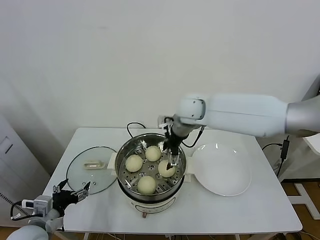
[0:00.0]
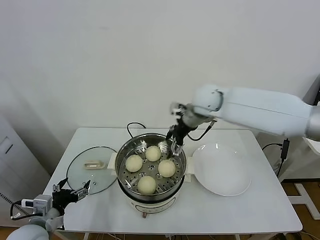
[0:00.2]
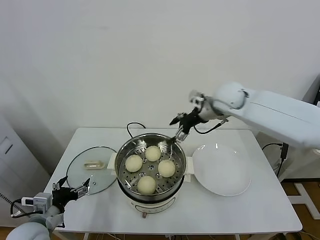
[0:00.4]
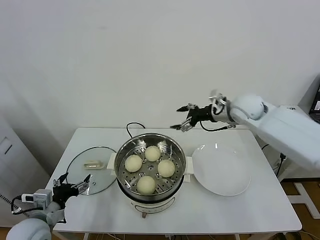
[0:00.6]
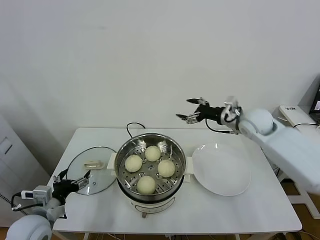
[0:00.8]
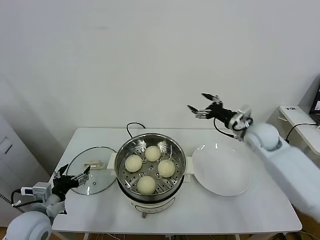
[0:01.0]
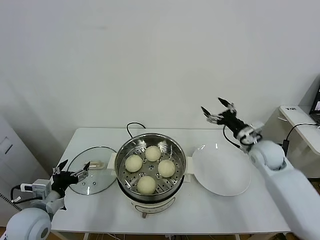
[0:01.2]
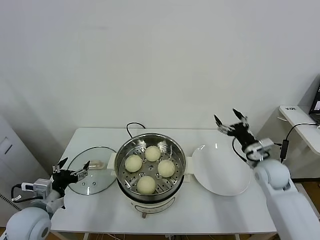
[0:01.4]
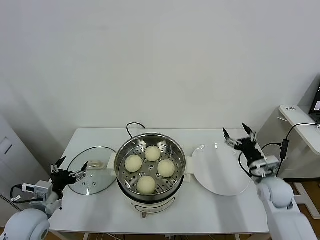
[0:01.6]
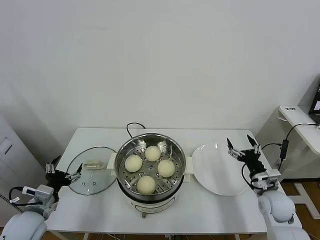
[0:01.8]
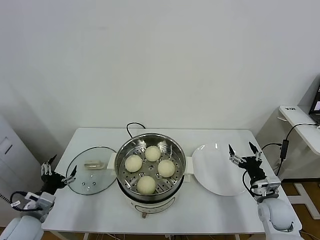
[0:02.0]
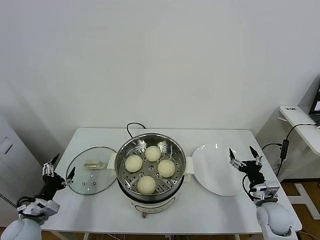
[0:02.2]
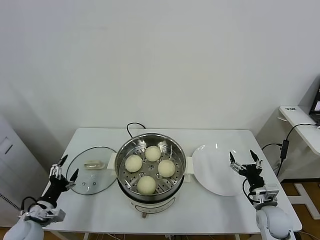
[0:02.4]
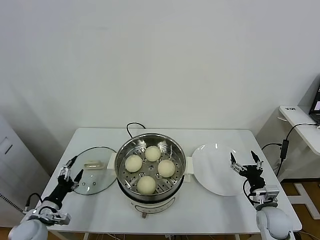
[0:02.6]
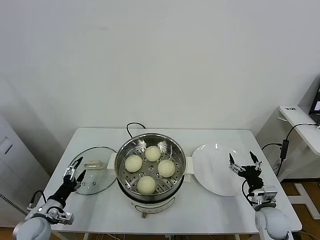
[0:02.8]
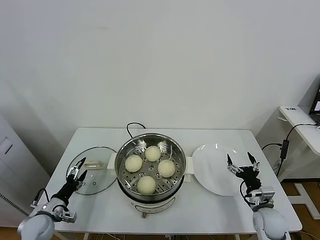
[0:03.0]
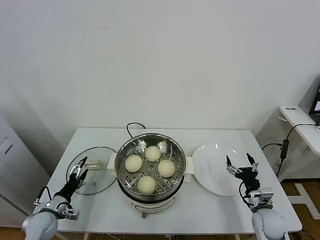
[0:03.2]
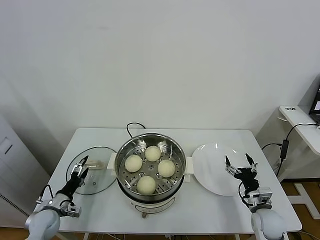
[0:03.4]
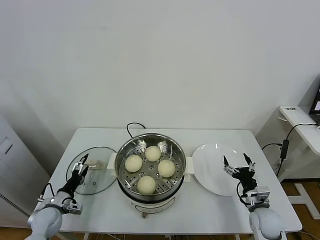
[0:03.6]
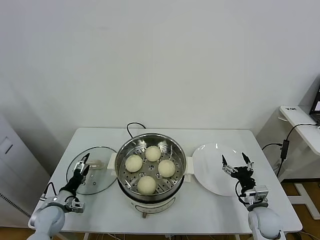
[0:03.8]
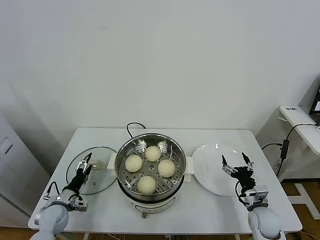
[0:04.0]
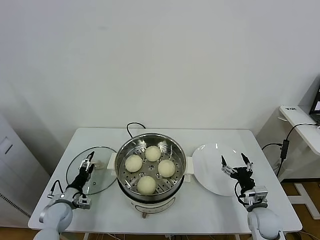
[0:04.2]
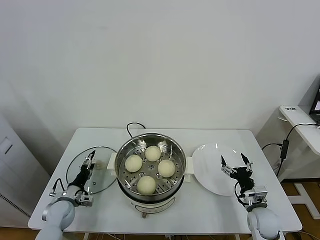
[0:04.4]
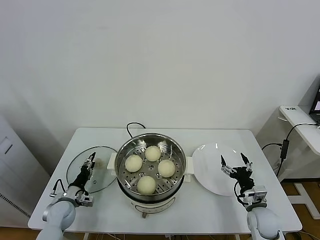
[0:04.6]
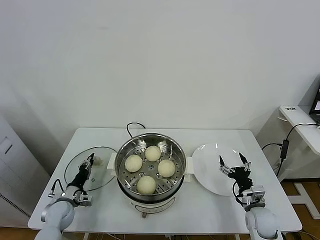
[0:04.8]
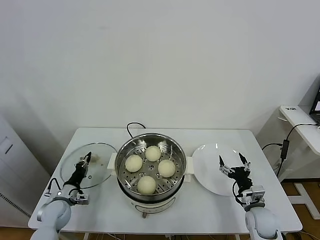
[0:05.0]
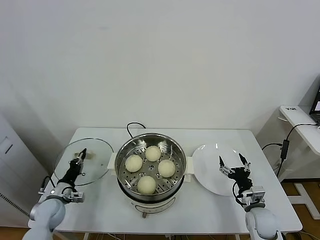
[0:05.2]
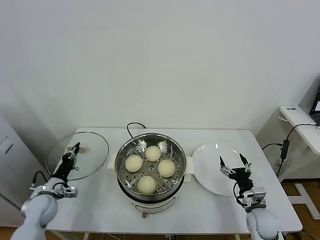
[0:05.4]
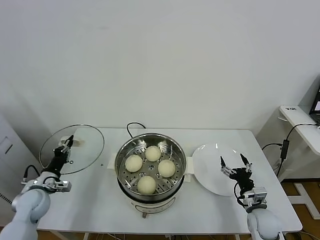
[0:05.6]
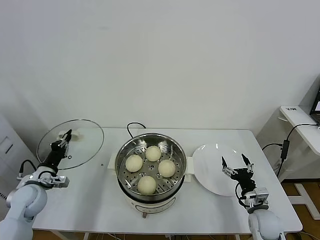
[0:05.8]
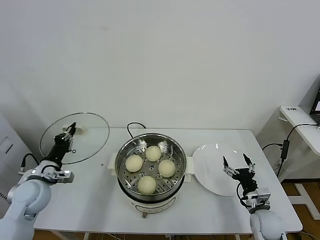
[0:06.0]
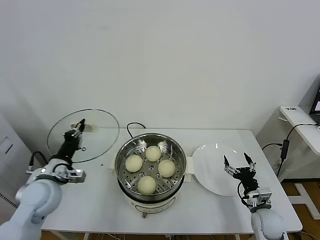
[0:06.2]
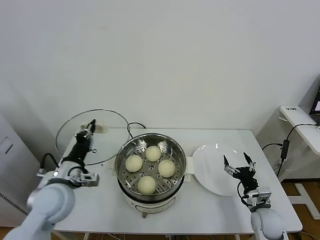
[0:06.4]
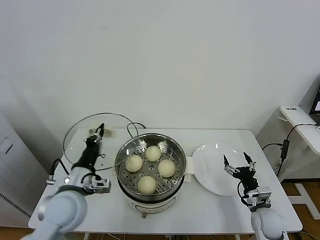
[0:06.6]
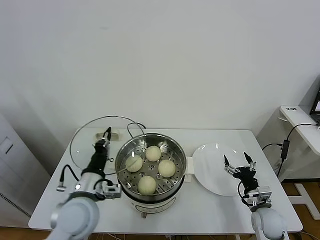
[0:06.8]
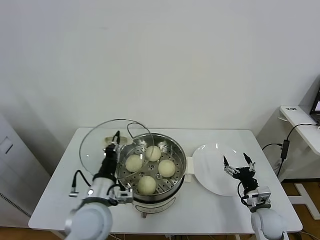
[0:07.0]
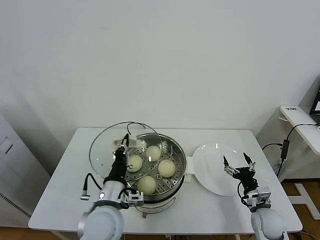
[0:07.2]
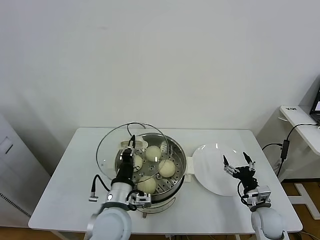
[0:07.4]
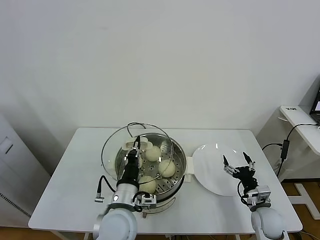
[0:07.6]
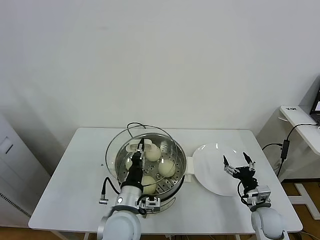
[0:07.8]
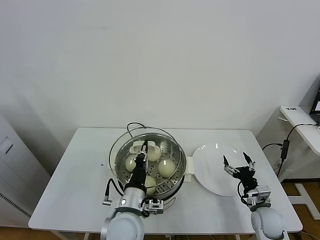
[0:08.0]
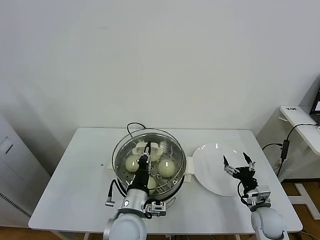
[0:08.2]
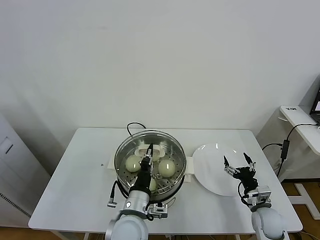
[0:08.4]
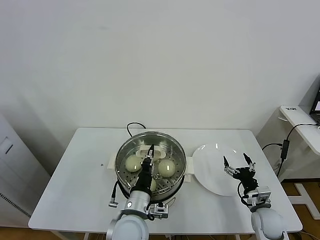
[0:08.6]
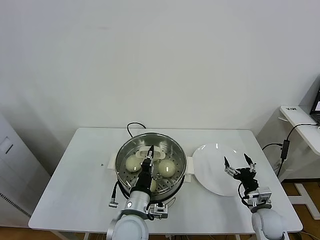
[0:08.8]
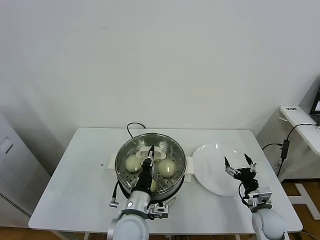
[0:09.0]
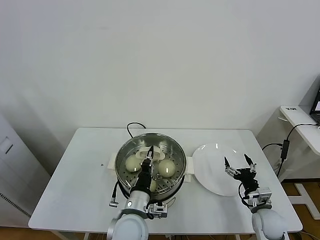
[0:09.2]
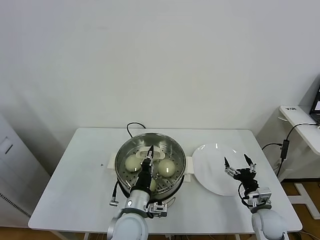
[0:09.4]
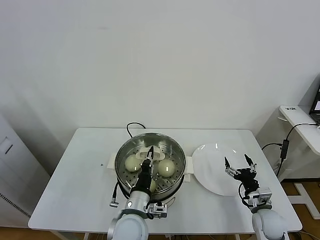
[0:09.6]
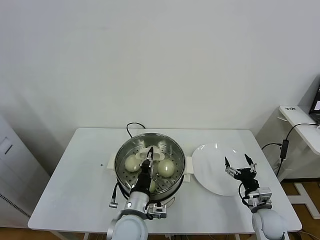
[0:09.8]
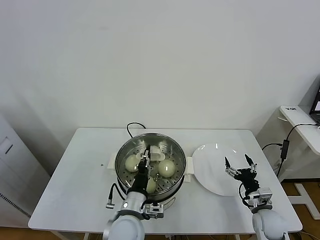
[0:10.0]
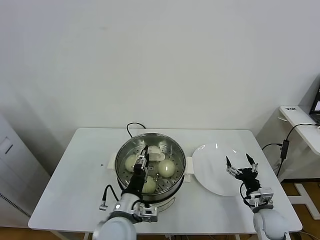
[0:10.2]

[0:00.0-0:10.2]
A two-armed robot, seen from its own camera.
Task of the whole recording: take steamed baozi put them in steamer.
Step, 0:00.0 to 0:05.0: Grasp the pot lid with left gripper.
0:00.0 to 0:01.4: The right gripper heads to the right, downward and backward, covering roughly 35 cm.
0:01.4 to 0:03.0: The right gripper heads downward and backward, covering approximately 15 cm. The left gripper moves downward and to the left, about 15 cm.
0:03.0 to 0:04.4: The left gripper is displaced forward by some 5 cm.
0:04.4 to 0:05.8: The left gripper is displaced upward by approximately 15 cm, and closes.
0:05.8 to 0:07.2: The left gripper travels to the right by some 25 cm.
0:07.2 to 0:08.8: The left gripper goes some 5 cm to the right.
0:08.8 to 0:10.2: The left gripper opens.

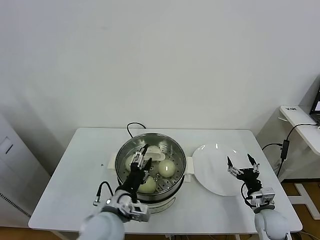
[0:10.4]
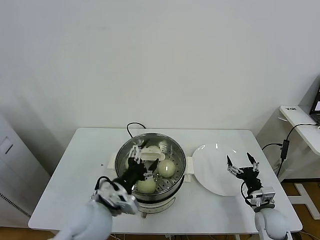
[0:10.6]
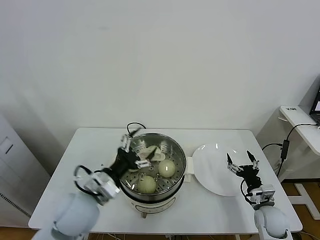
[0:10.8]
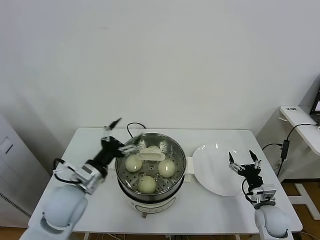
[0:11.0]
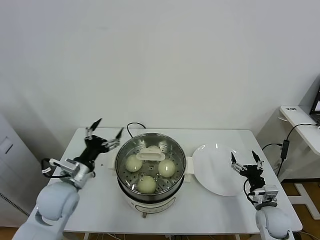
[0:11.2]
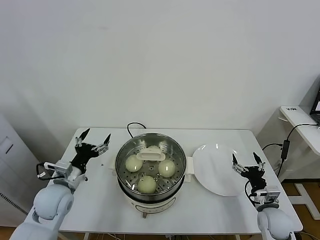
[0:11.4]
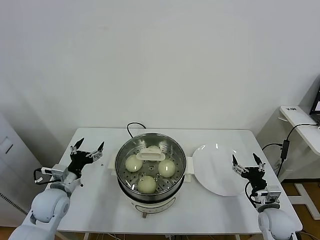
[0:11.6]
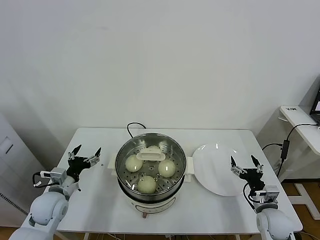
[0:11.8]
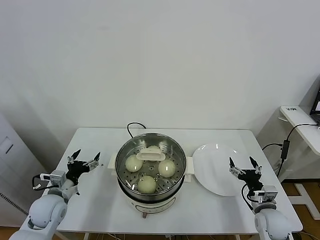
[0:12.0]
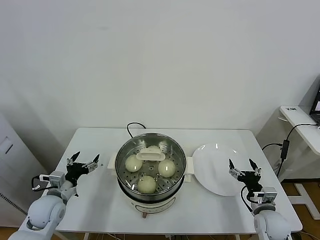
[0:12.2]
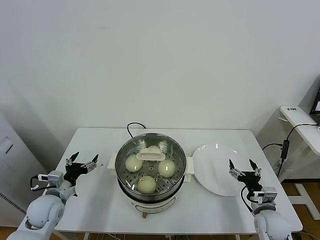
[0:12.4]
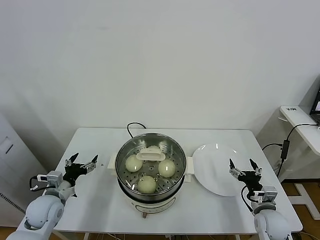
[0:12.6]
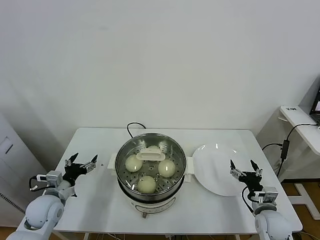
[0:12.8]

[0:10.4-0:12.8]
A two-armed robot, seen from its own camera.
Task of the whole recording: take steamed baozi put them in steamer.
0:10.4 to 0:11.6: The left gripper travels to the left and forward by roughly 20 cm.
0:11.6 to 0:12.8: There are only small adjustments of the grippers.
